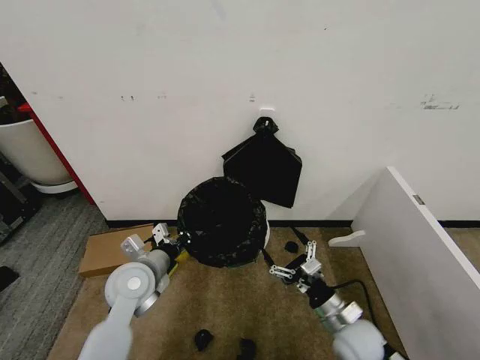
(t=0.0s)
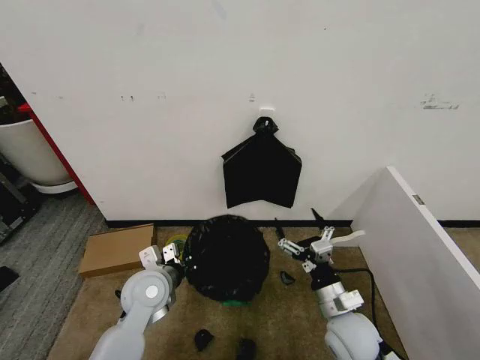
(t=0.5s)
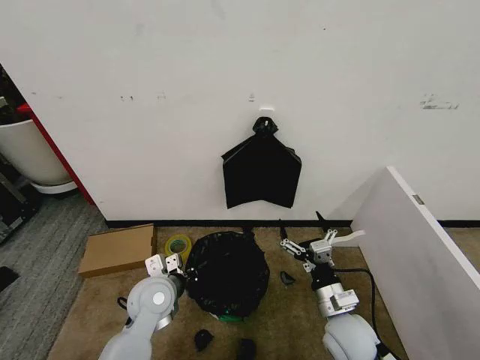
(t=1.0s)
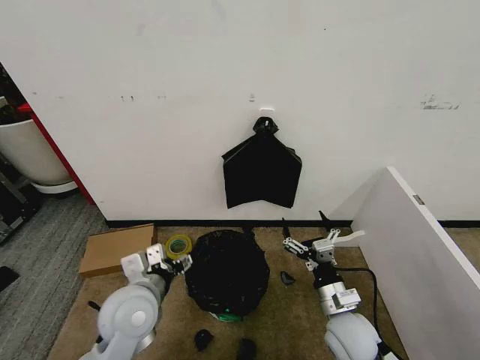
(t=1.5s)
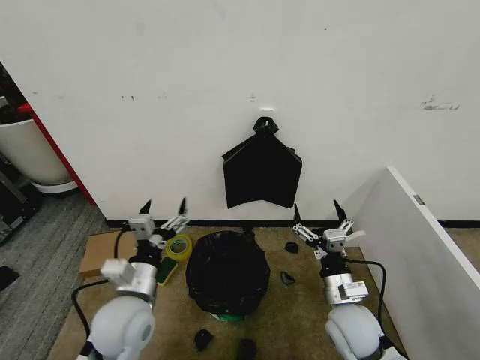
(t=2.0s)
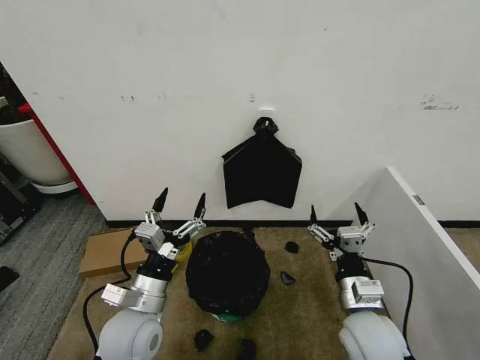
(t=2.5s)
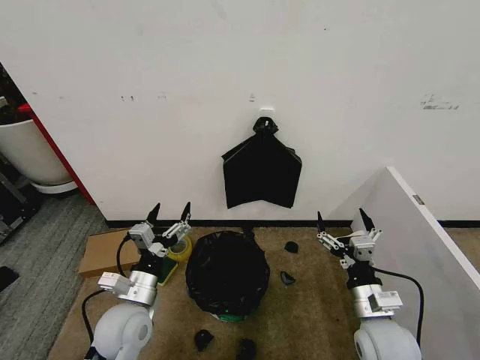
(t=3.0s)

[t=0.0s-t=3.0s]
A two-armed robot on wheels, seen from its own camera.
Task of the whole recording: Place the garbage bag over the trash bin.
t=0.0s to t=1.5s: The left gripper travels backward by approximately 5 cm, and opens up.
t=1.5s to t=3.0s: The left gripper travels downward by about 5 cm; the right gripper moves some 5 cm.
